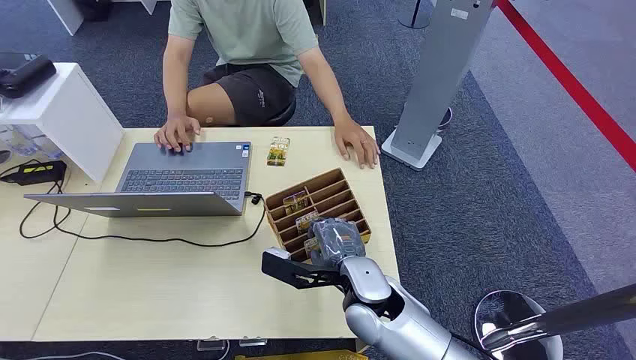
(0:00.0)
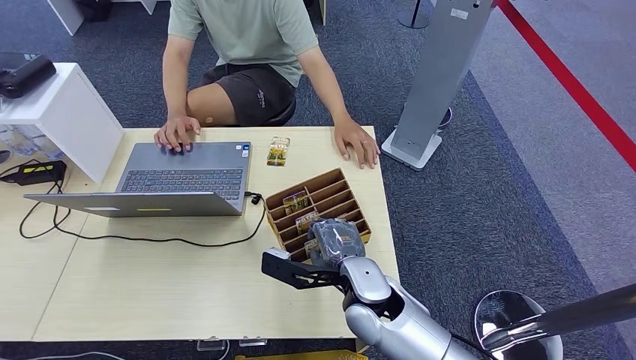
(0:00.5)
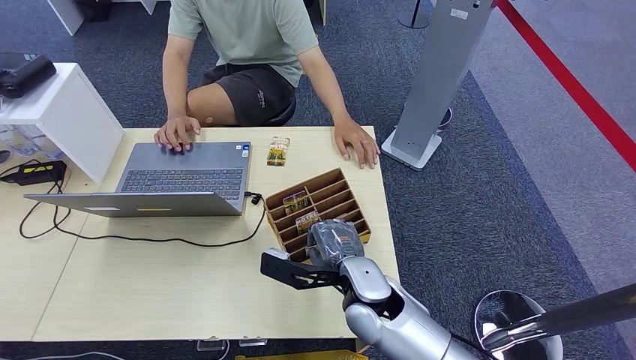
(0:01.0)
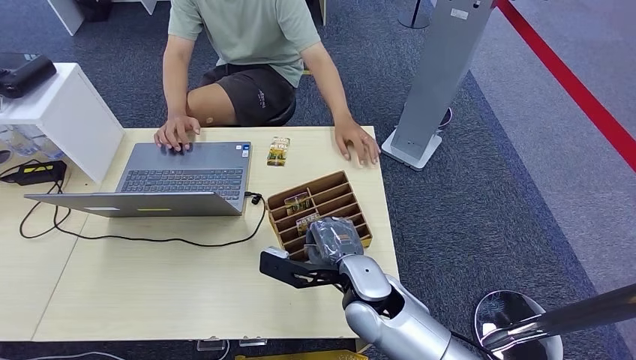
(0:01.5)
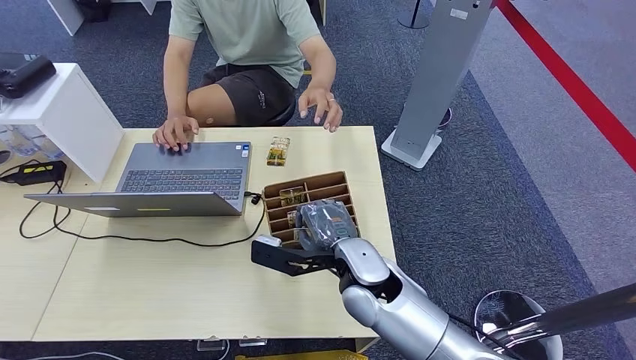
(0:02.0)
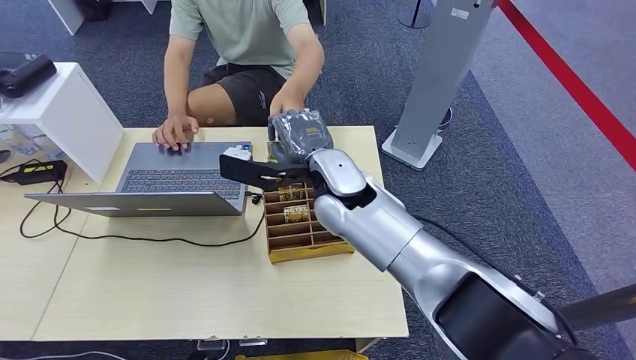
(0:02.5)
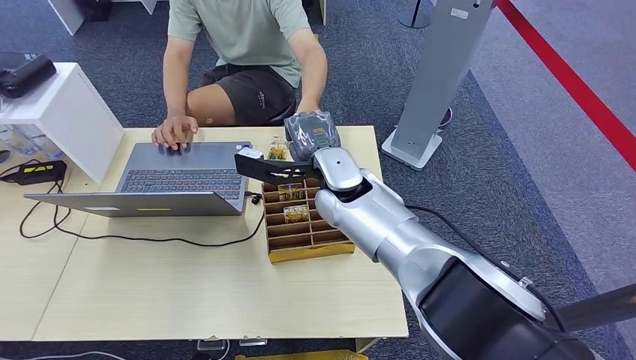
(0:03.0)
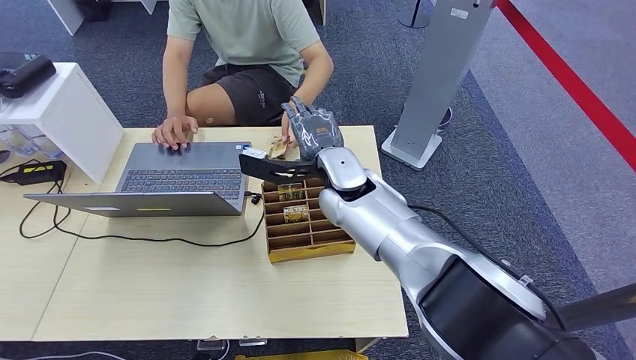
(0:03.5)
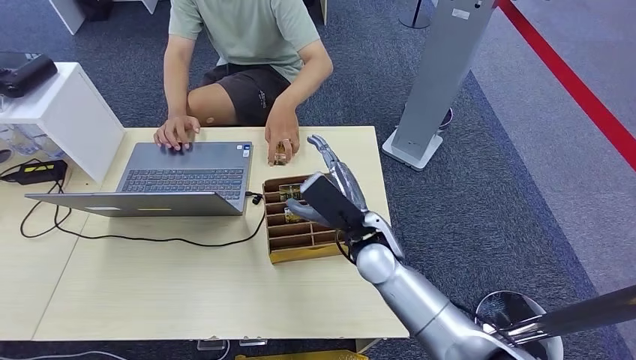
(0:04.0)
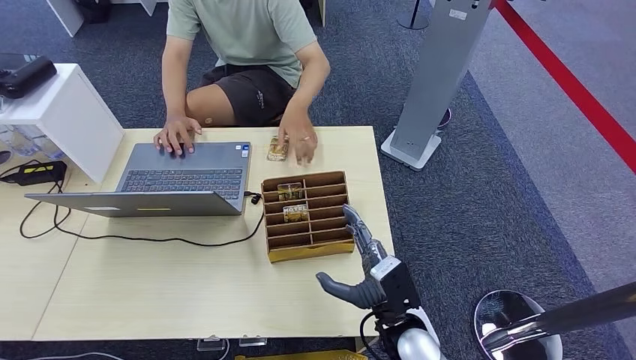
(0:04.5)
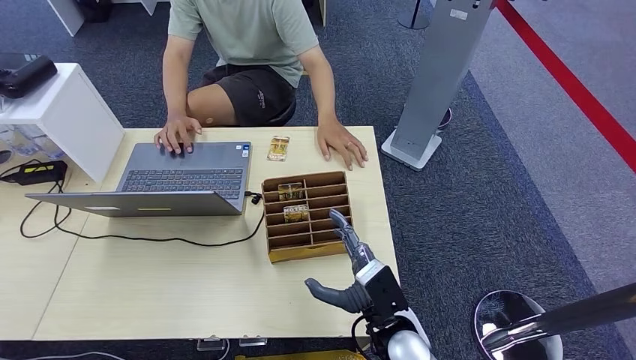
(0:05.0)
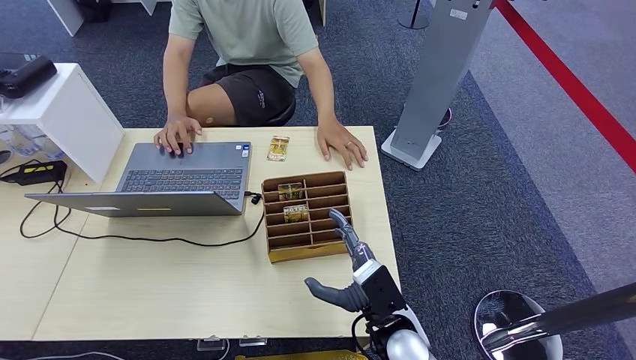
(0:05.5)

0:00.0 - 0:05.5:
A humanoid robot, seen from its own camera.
Task of the whole recording: Pick up the card and hand it over to the target person.
Step, 0:00.0 - 0:02.0: Pick up the key card from the card box.
Step, 0:02.5 - 0:05.5: Hand the key card to the target.
0:02.0 - 0:03.5: The right hand moves forward, roughly 5 cm.
0:03.5 - 0:05.5: The right hand shifts approximately 30 cm downward, backward and to the right.
